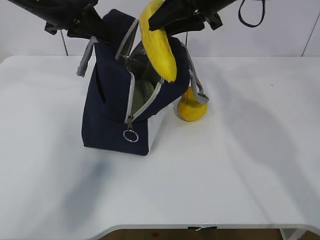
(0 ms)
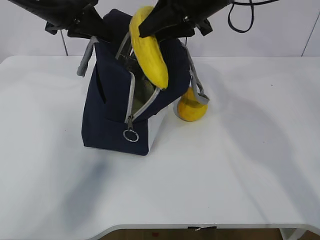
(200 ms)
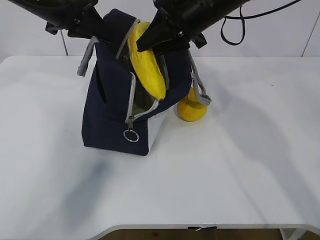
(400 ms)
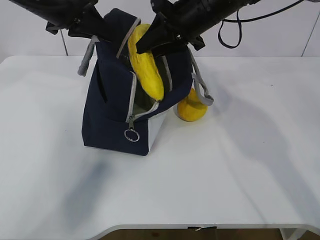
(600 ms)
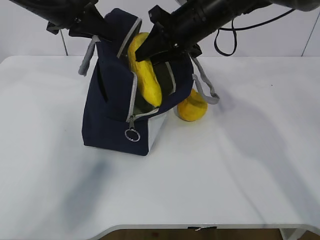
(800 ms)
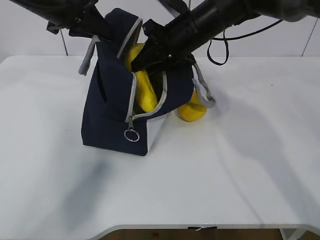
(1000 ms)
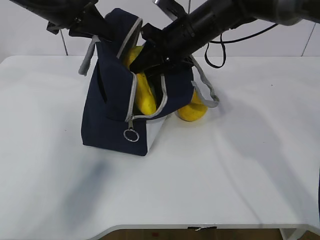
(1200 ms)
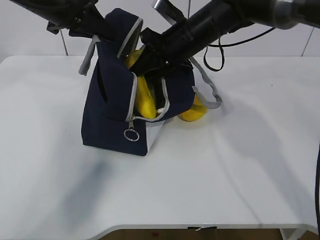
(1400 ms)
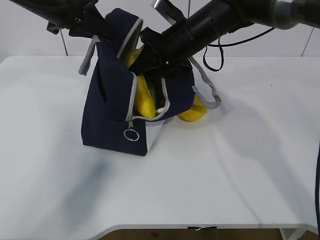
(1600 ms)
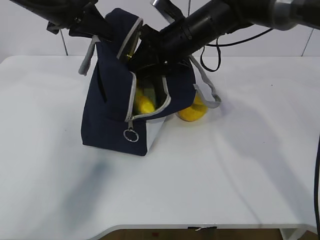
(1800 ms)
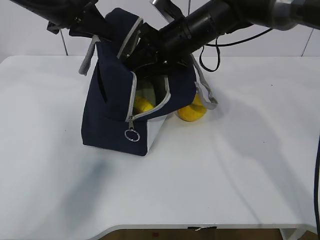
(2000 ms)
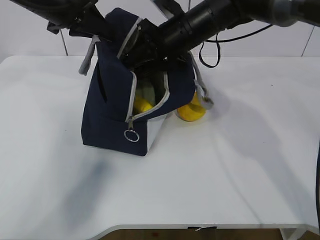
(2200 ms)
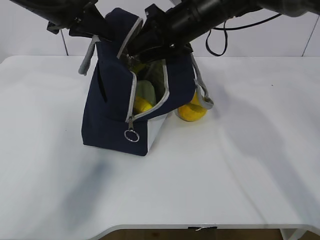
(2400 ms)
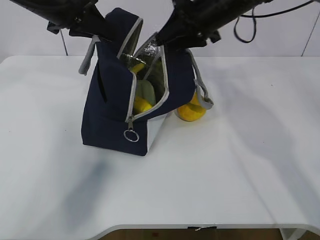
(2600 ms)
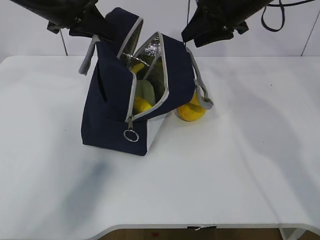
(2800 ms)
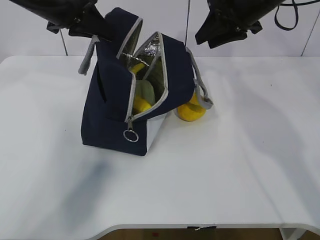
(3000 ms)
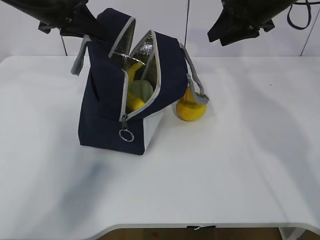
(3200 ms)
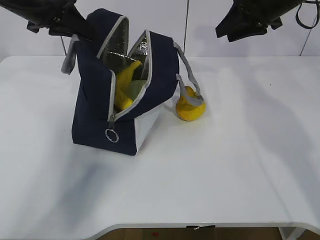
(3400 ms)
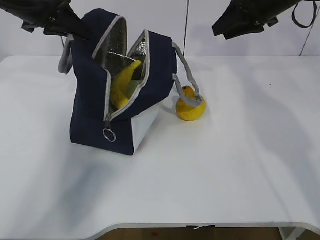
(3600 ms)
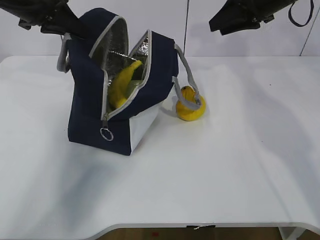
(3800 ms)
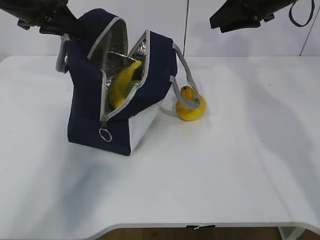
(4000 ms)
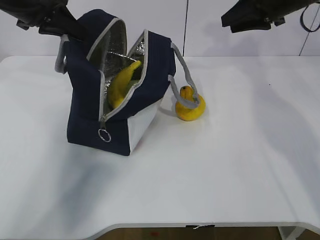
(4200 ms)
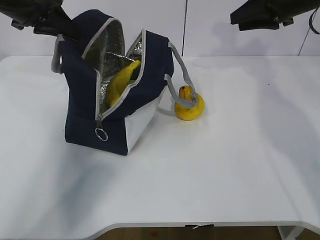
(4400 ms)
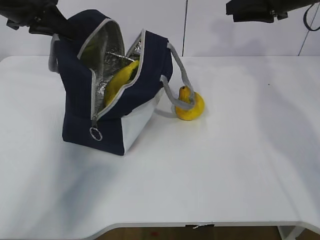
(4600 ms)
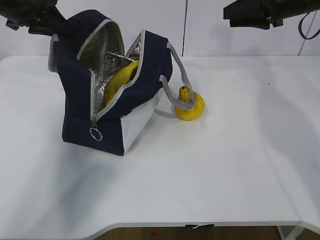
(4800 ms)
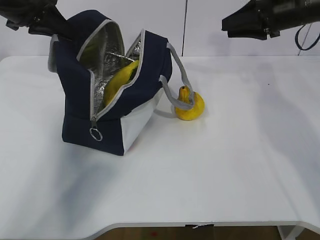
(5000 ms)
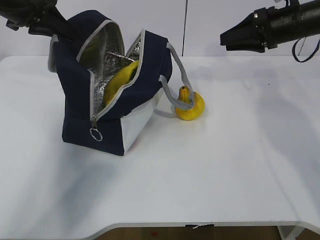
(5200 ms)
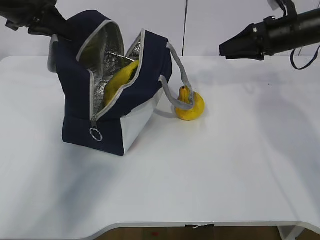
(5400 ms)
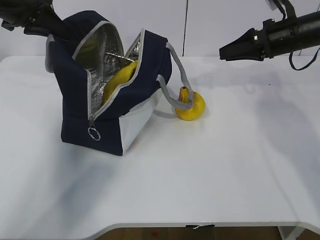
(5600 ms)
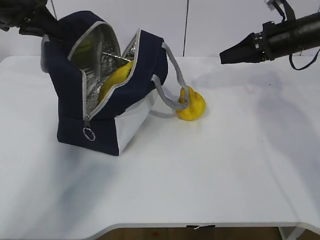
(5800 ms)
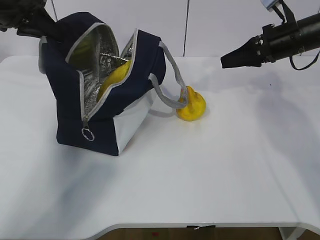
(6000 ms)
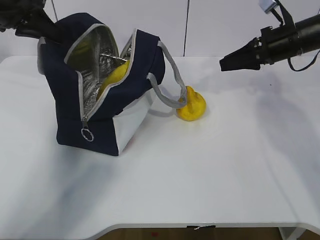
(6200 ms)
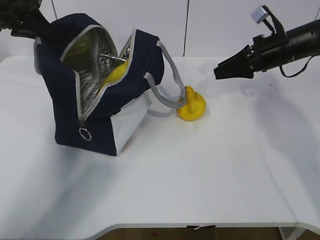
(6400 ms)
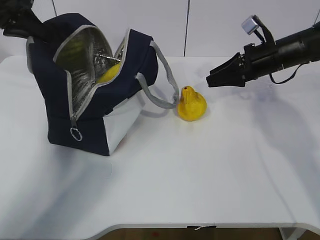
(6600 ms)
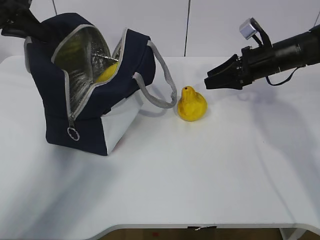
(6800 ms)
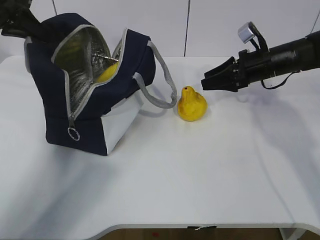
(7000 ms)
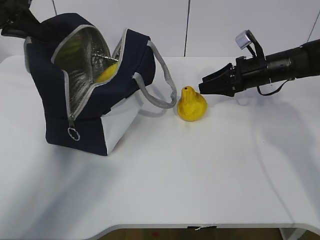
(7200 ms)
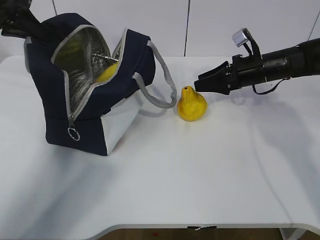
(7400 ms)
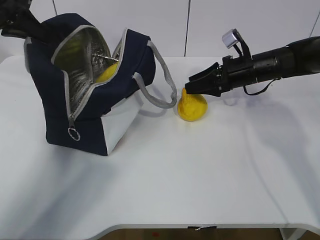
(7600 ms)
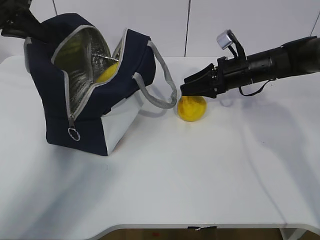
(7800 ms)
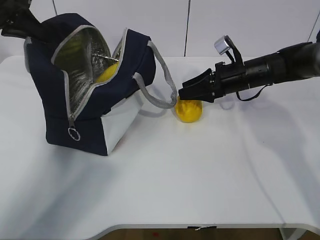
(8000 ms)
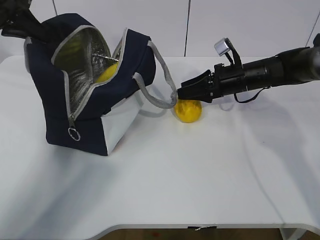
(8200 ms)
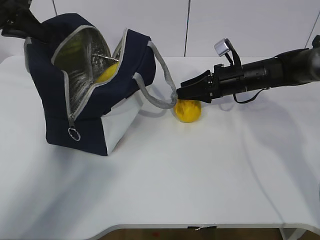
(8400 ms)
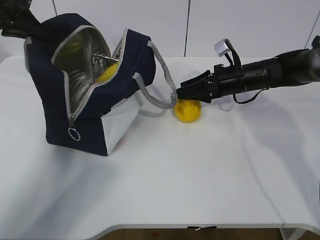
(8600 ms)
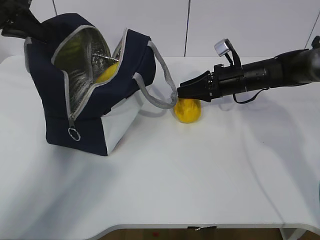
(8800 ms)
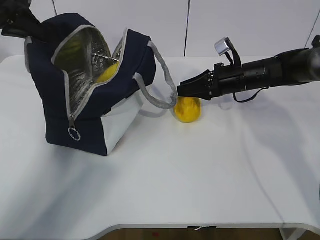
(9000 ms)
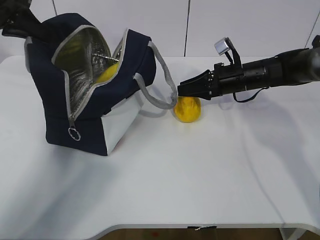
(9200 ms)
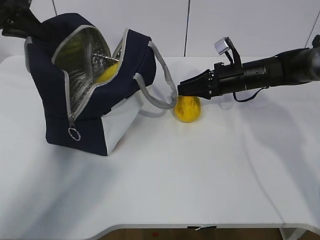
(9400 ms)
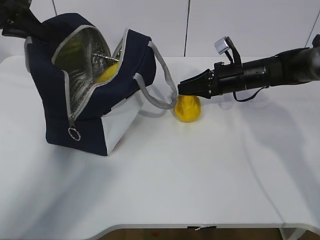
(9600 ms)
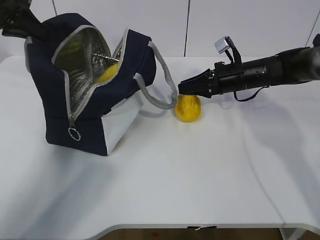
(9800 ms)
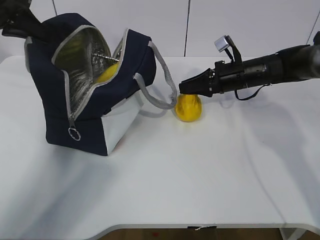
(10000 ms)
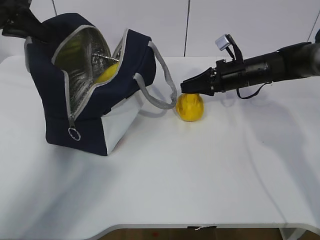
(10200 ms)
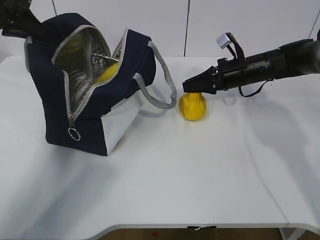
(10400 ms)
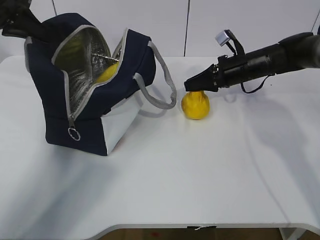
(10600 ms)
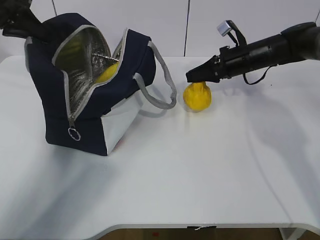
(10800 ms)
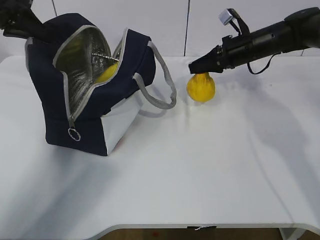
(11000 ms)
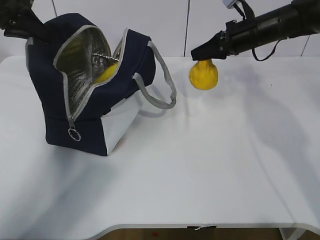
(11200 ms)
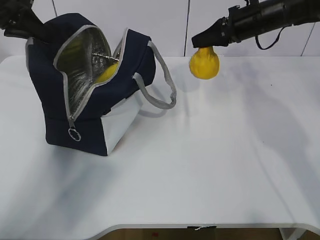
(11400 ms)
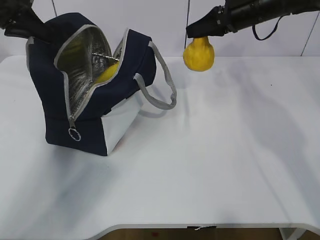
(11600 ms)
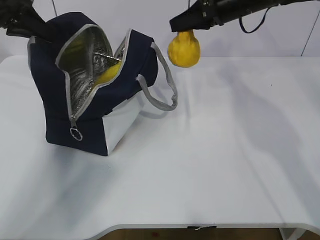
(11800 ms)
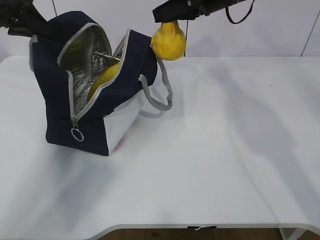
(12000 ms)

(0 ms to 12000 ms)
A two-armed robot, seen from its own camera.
Step, 0 ms - 2000 ms: Grab the pear with your right hand.
Step, 2200 ms - 7400 ms: Secure the lunch bag with your left hand.
Step, 7600 ms - 10000 ms: Grab the lunch bag with your right hand.
0 ms - 1600 ms: The right gripper heads downward, covering about 10 cm.
1600 ms - 3000 ms: The right gripper goes roughly 15 cm to the right and upward.
3000 ms - 4400 ms: The left gripper heads to the left, covering some 5 cm; the right gripper travels to the right by about 10 cm.
4400 ms - 6000 ms: The right gripper is displaced downward by approximately 5 cm.
6000 ms - 7600 ms: The right gripper shifts some 10 cm downward and to the left.
7600 ms - 10400 ms: The grippers stay close to where they were, moving slightly.
10400 ms - 12000 ms: The right gripper moves upward and to the left, roughly 20 cm.

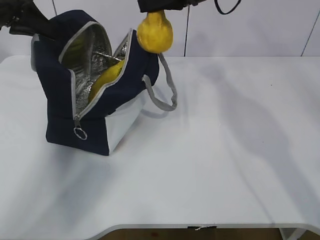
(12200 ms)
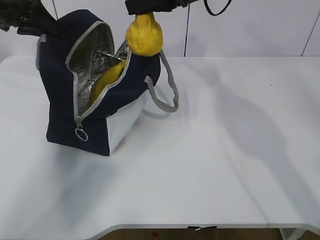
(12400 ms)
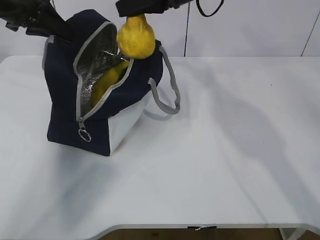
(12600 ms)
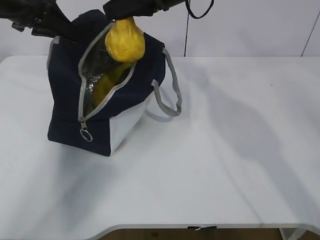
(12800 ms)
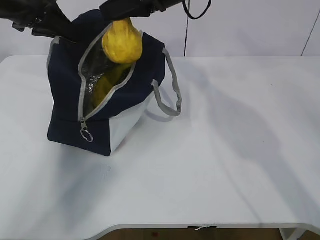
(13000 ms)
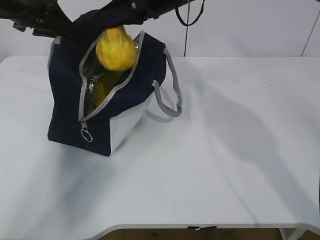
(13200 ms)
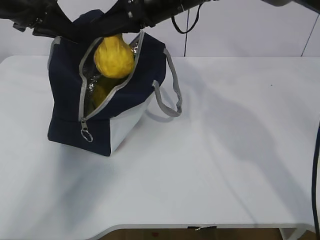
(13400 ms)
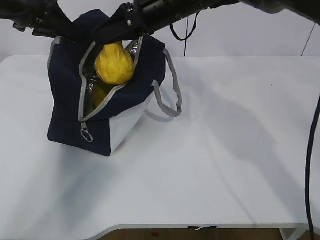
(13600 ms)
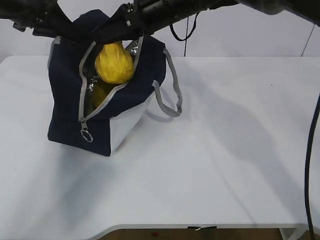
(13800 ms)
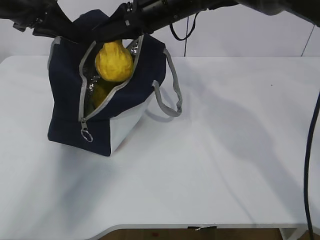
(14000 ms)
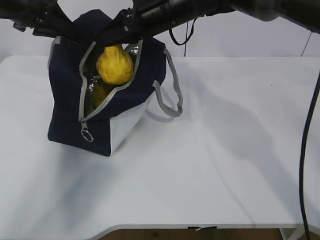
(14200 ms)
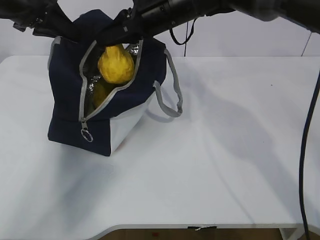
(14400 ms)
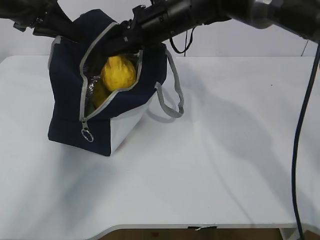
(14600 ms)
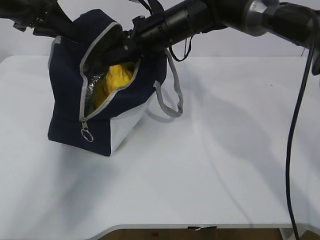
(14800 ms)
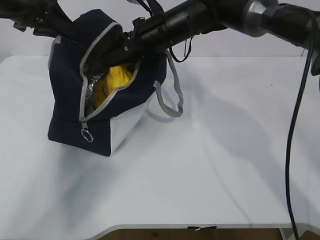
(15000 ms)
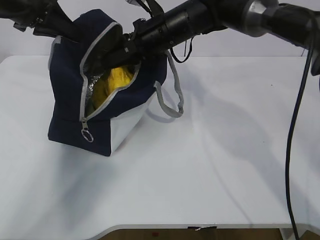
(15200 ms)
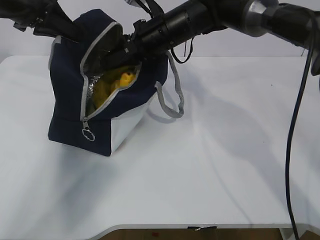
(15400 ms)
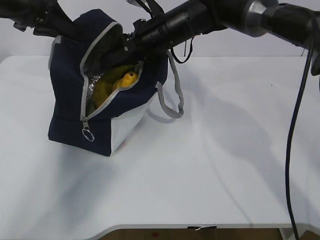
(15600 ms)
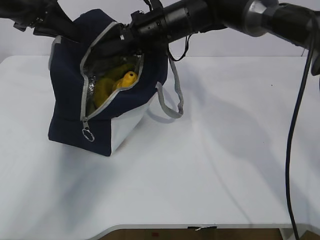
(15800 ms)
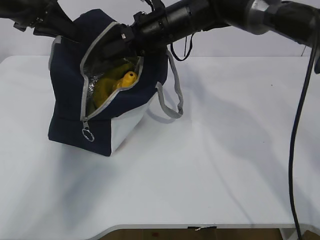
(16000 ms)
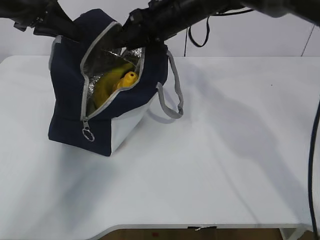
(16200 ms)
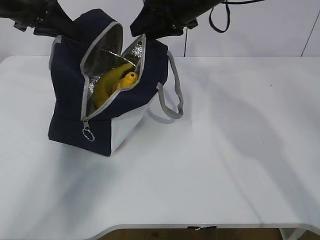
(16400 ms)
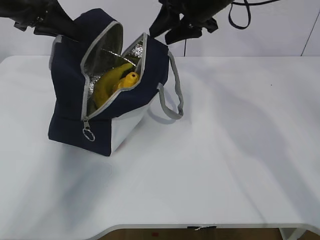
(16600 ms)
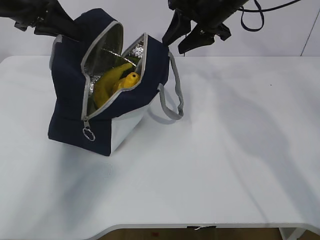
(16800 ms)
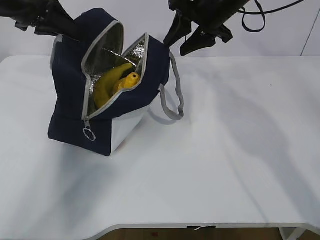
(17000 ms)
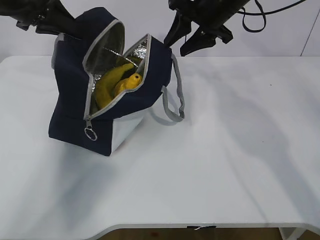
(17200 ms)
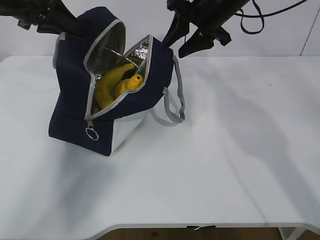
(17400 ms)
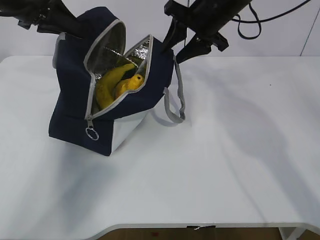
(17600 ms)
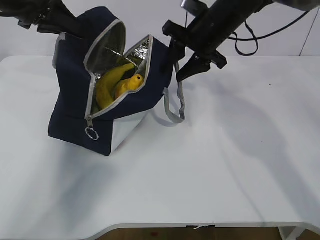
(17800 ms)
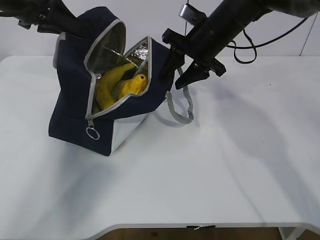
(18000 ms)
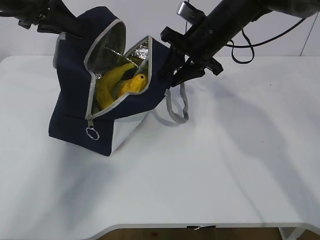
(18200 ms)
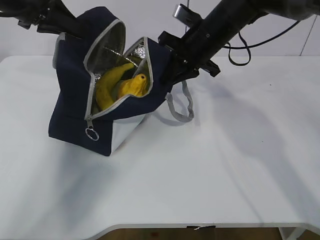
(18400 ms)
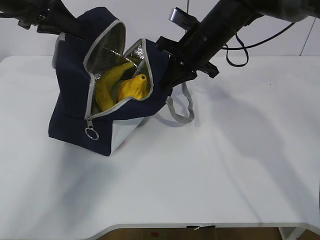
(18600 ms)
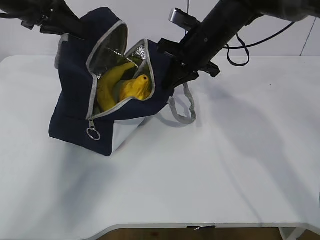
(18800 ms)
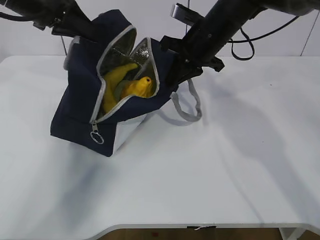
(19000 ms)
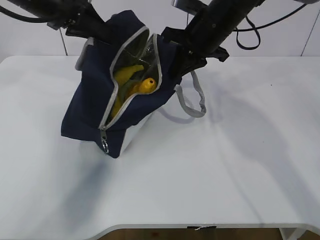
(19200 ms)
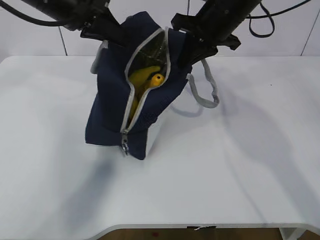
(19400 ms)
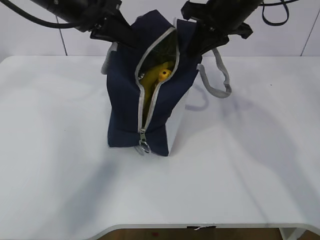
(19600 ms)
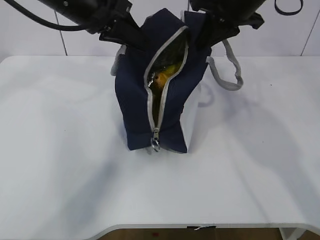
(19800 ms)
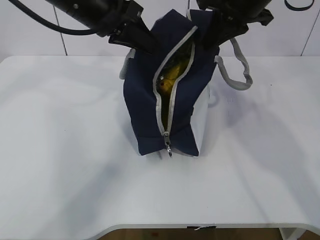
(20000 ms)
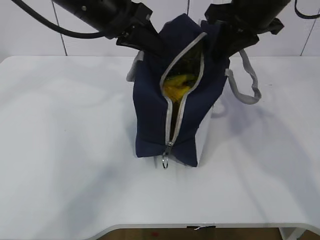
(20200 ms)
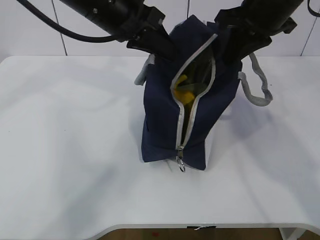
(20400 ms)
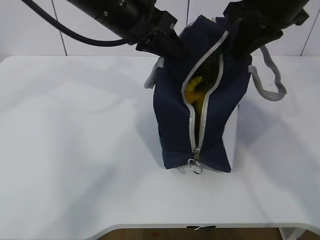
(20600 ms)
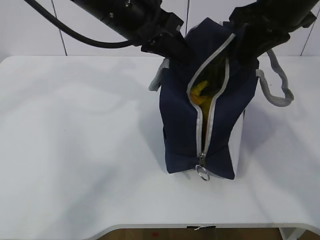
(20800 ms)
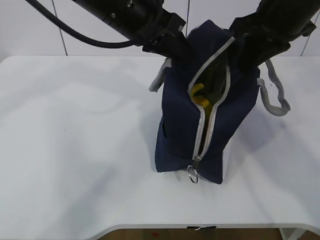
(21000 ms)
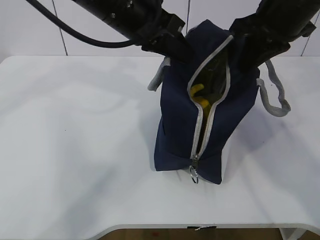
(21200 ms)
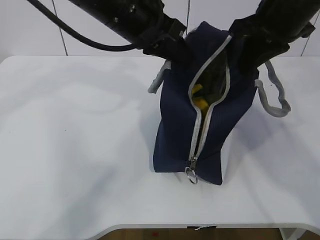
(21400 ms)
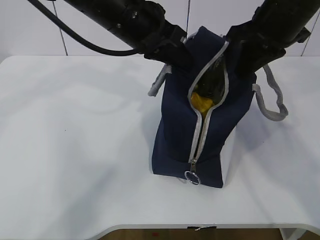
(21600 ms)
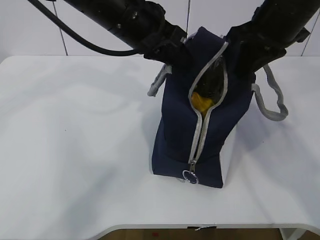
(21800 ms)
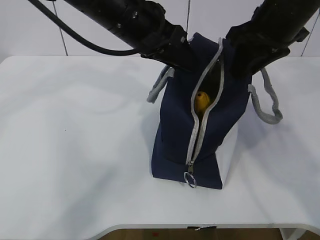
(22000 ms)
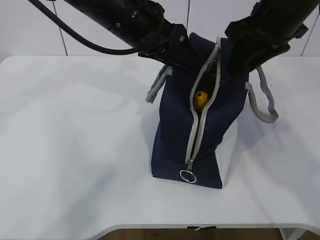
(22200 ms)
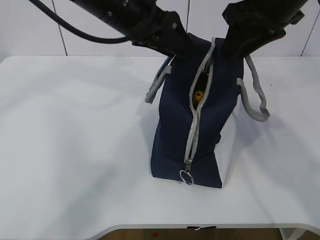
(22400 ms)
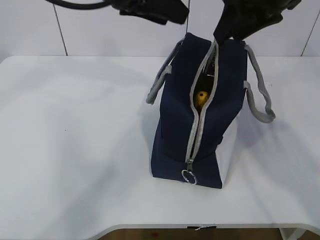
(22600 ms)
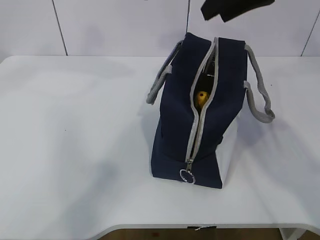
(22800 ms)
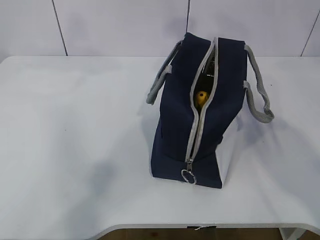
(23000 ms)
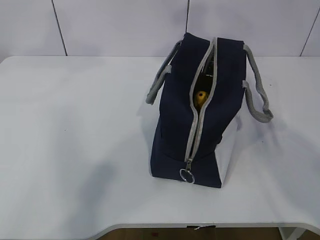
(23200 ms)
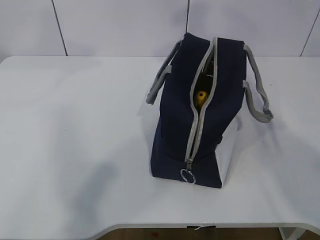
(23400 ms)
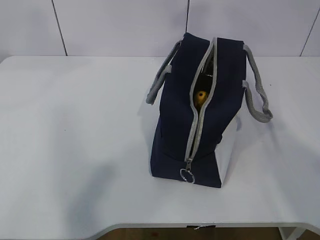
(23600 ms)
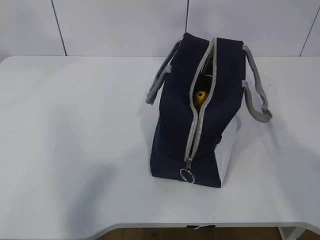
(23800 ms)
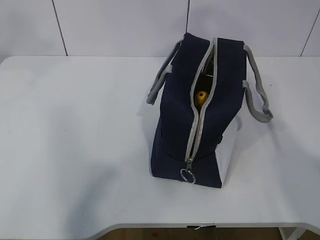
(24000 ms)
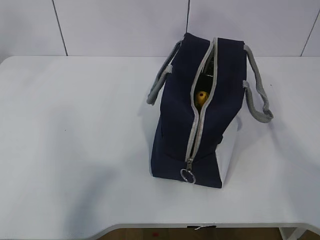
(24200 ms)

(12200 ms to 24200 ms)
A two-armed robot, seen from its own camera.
12200 ms - 13800 ms: The right gripper heads to the left, covering roughly 10 cm.
13800 ms - 15200 ms: The right gripper moves about 5 cm.
15200 ms - 16600 ms: The right gripper travels to the right and upward by approximately 10 cm.
16600 ms - 18200 ms: The right gripper heads downward, covering some 5 cm.
18200 ms - 19800 ms: The right gripper moves upward, roughly 10 cm, and closes up, while the left gripper heads to the right, covering some 10 cm.
19800 ms - 21200 ms: The left gripper moves to the right, about 5 cm, while the right gripper travels backward by approximately 5 cm.
21200 ms - 22600 ms: The right gripper opens its fingers. Meanwhile the left gripper opens up.
22600 ms - 24200 ms: The right gripper heads upward and backward, covering roughly 25 cm; the left gripper goes some 25 cm upward, to the left and backward.
